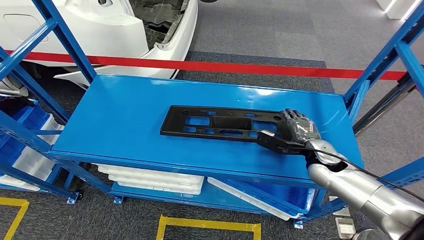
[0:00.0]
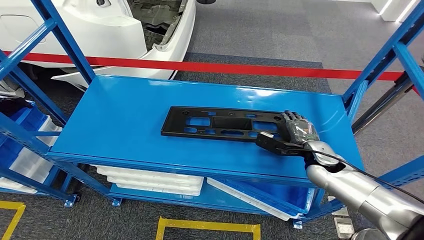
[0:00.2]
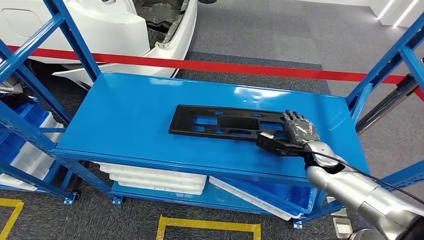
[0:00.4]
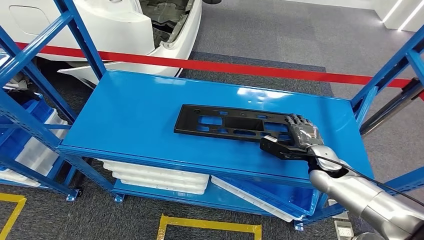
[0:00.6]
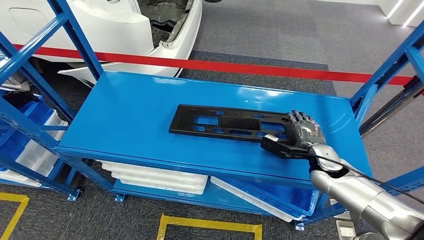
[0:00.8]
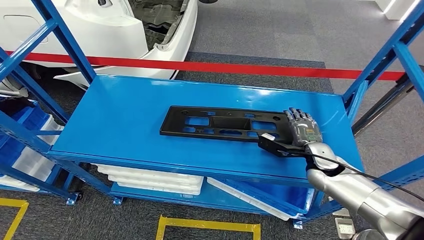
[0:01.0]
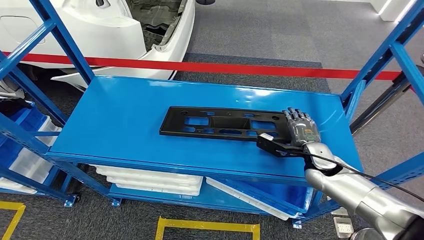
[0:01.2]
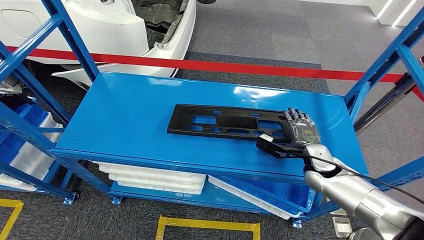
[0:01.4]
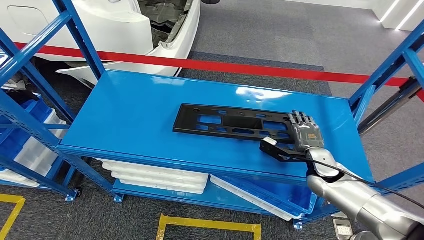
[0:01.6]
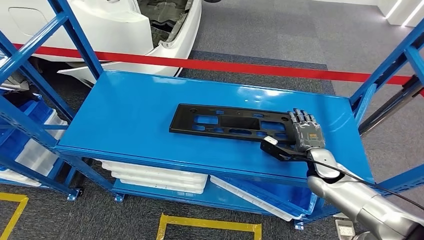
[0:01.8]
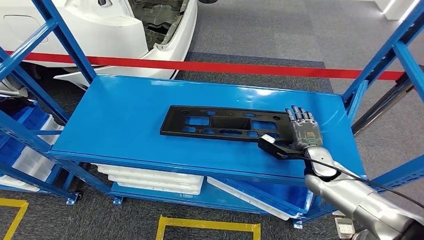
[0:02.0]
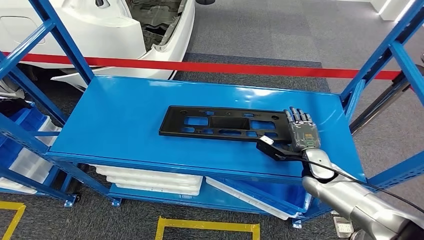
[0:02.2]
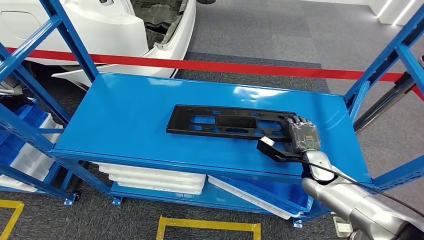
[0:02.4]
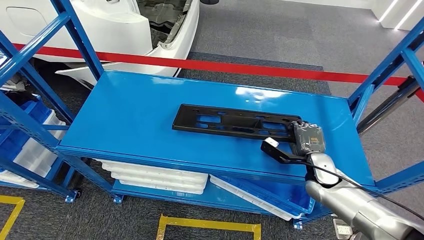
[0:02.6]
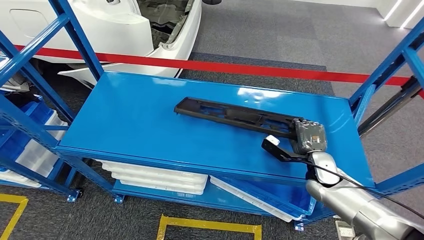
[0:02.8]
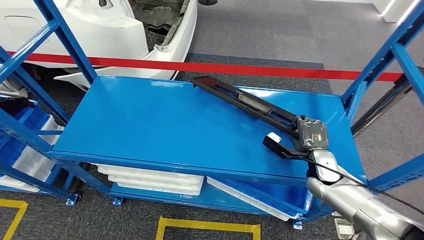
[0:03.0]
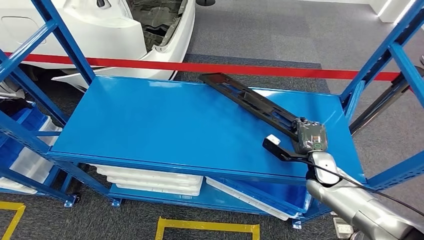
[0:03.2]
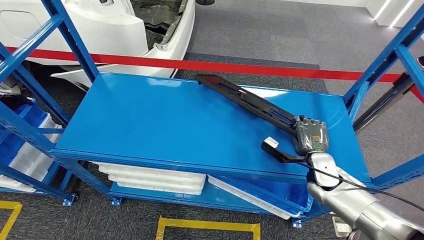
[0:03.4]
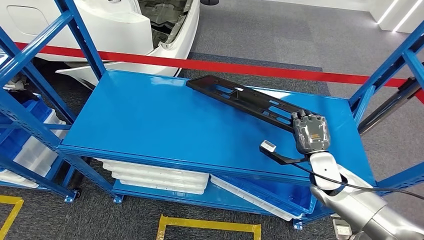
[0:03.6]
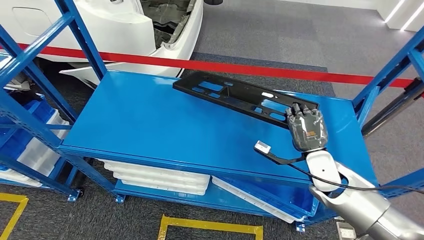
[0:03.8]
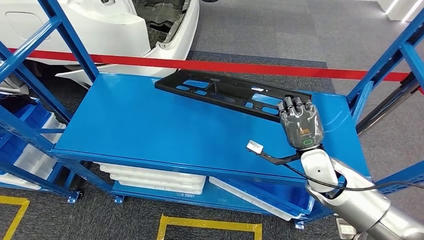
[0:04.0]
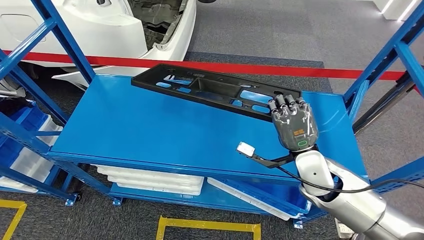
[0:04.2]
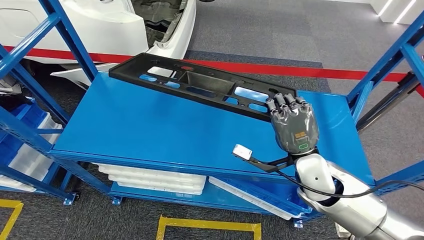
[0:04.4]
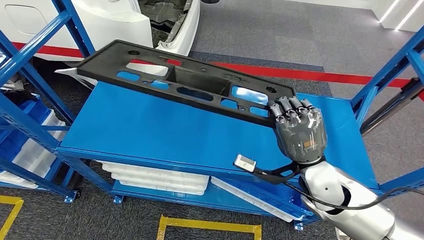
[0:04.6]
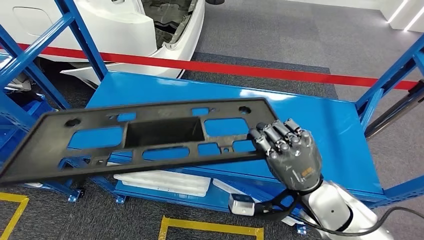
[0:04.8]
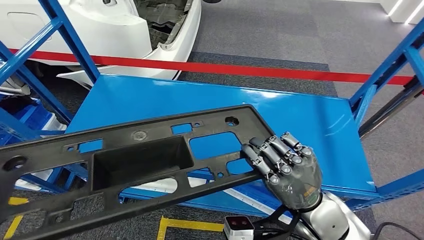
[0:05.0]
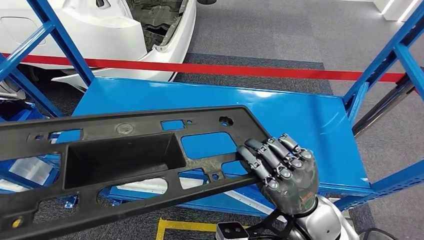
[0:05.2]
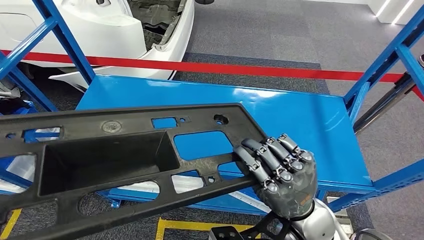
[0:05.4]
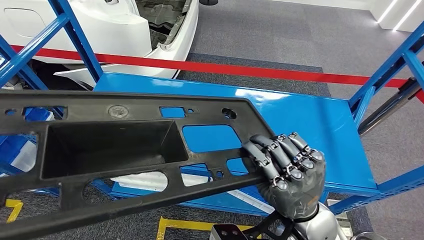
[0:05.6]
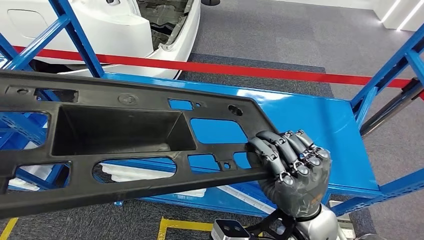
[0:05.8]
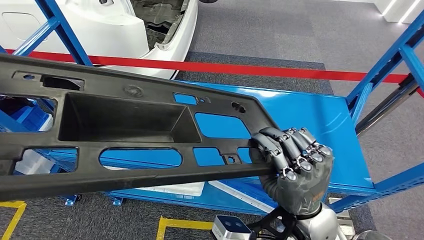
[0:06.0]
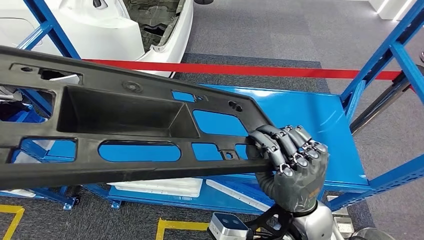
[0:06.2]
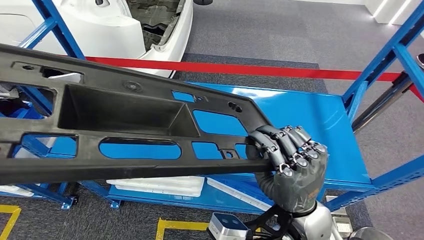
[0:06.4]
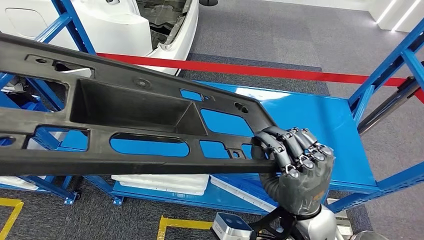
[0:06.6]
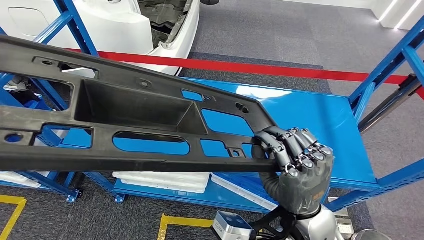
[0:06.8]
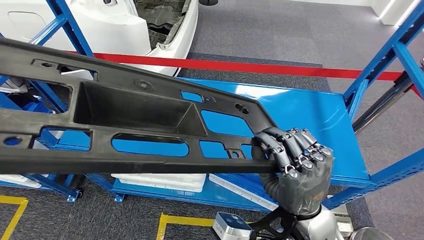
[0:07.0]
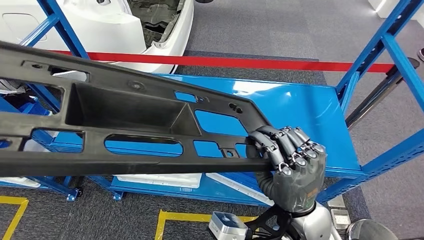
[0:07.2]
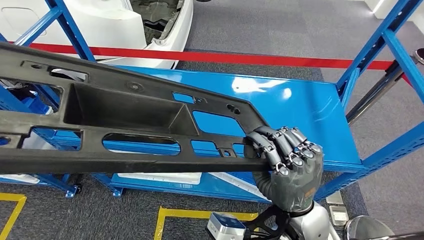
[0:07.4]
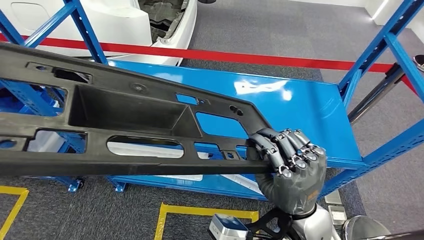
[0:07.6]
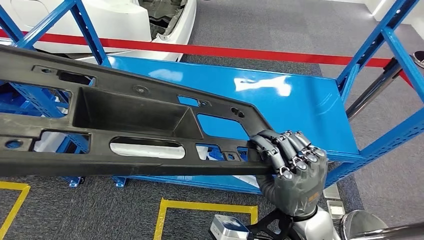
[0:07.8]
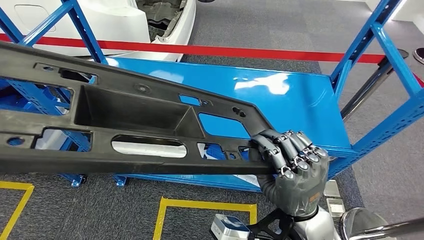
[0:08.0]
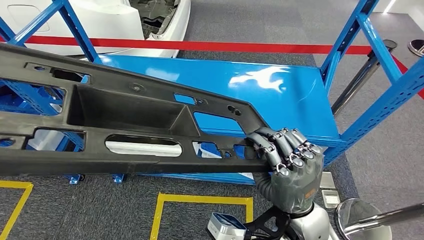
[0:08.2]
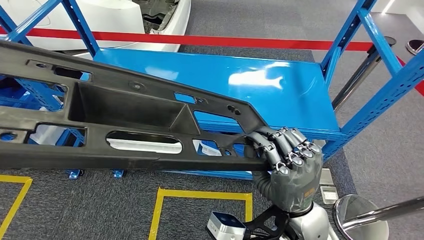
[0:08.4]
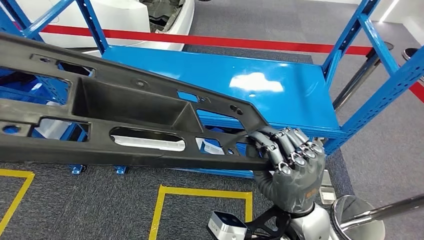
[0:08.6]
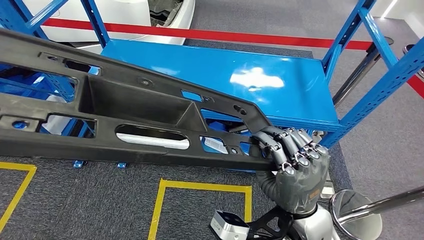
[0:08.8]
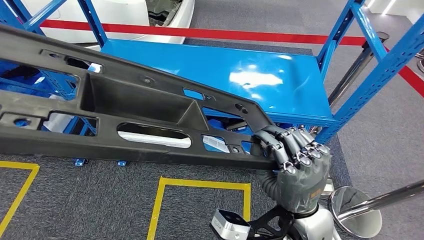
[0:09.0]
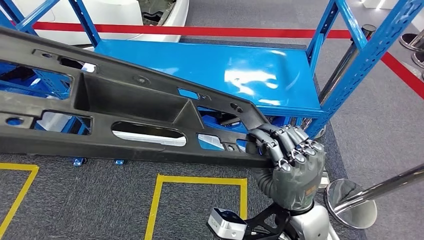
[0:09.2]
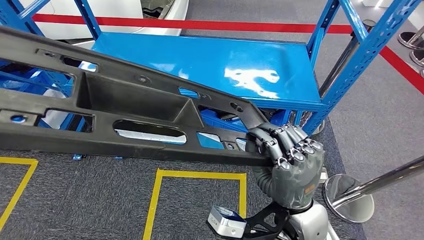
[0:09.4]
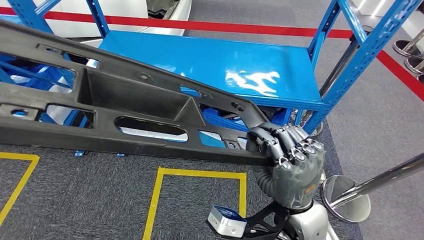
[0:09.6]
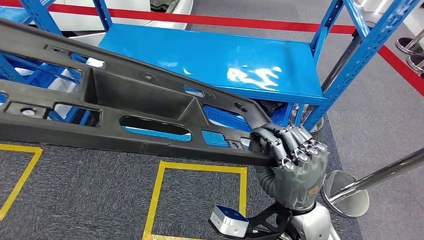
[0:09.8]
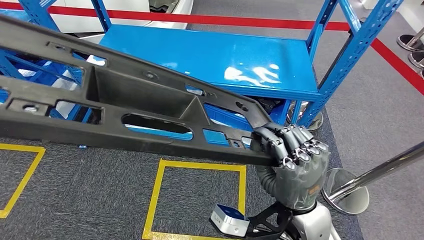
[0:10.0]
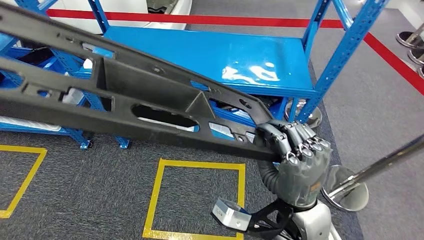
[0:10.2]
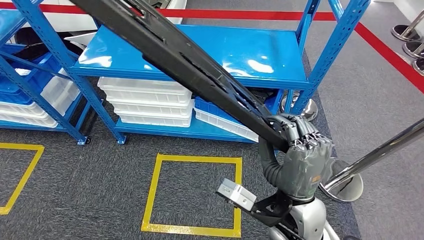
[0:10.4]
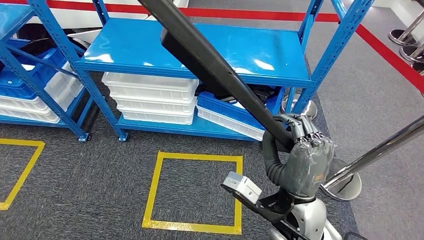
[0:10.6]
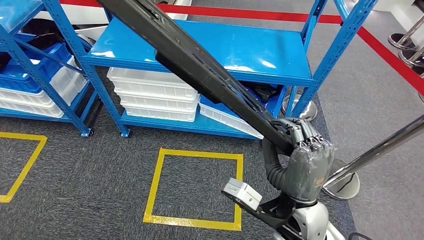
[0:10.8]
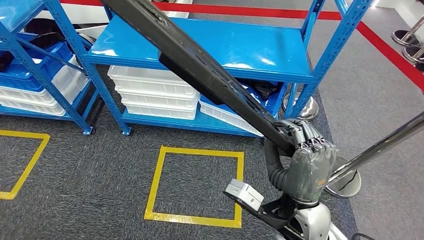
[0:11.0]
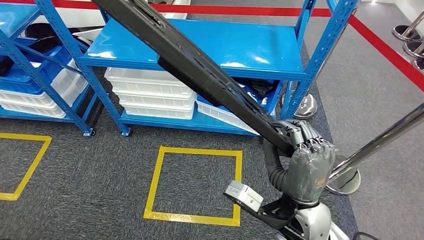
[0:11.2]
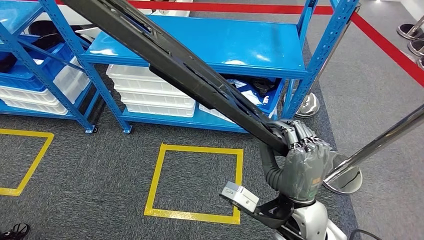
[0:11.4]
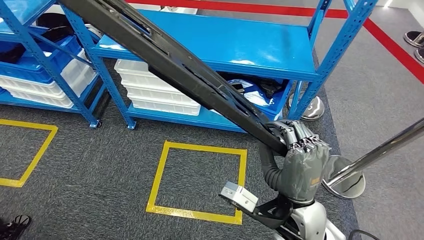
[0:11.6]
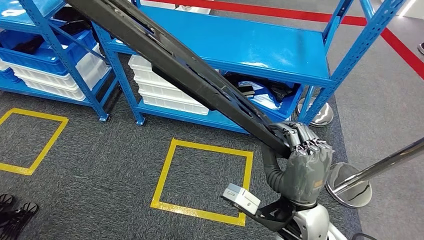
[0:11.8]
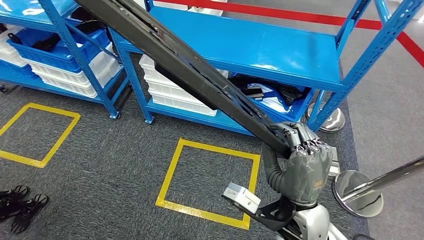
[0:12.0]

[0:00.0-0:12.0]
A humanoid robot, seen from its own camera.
Step, 0:00.0 to 0:08.4: Pick up the large material from the shelf.

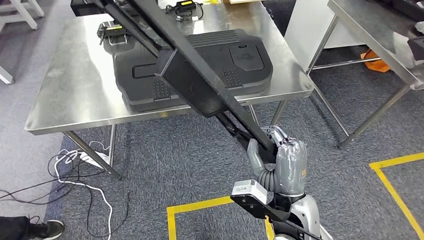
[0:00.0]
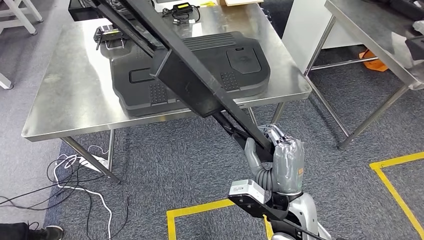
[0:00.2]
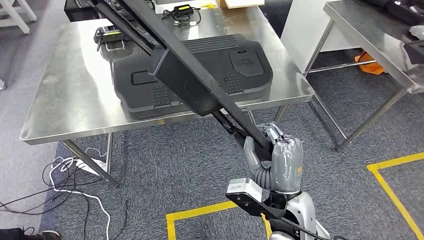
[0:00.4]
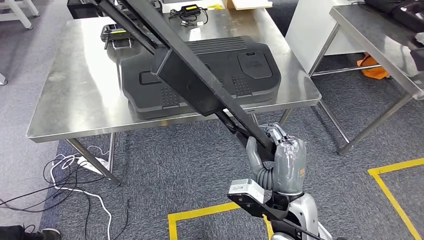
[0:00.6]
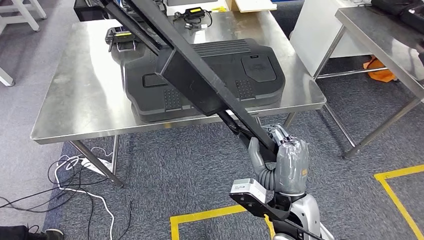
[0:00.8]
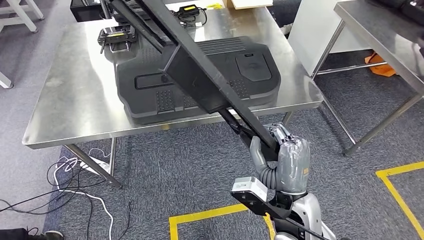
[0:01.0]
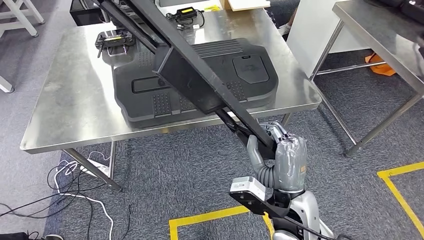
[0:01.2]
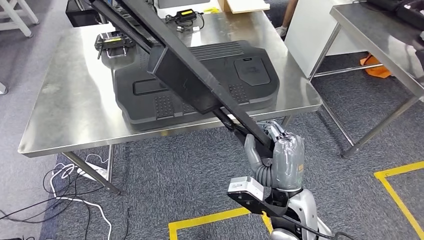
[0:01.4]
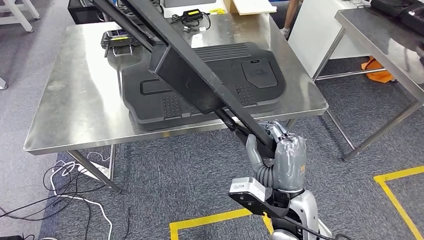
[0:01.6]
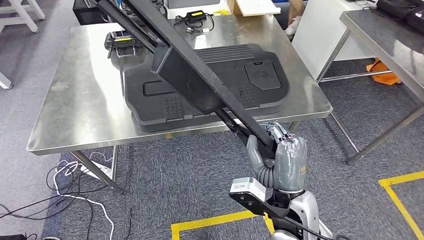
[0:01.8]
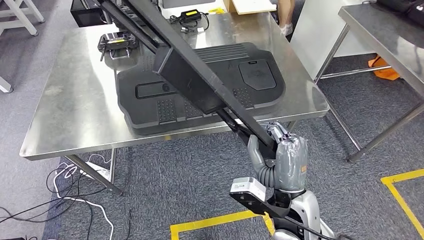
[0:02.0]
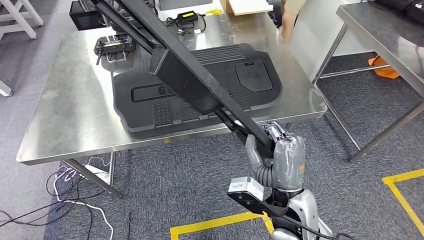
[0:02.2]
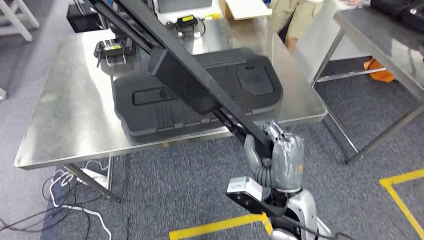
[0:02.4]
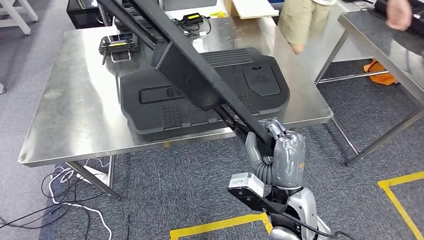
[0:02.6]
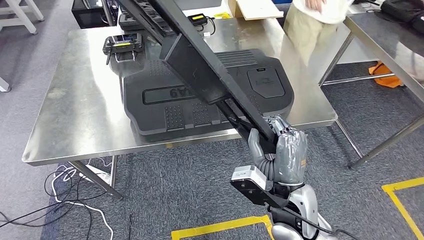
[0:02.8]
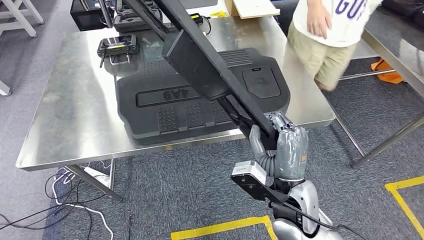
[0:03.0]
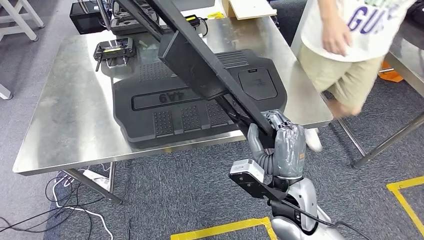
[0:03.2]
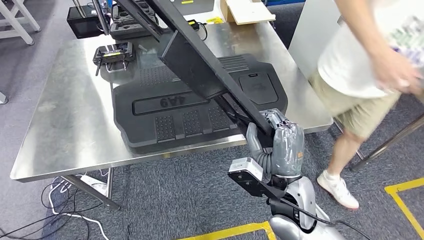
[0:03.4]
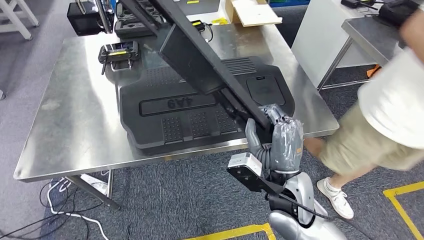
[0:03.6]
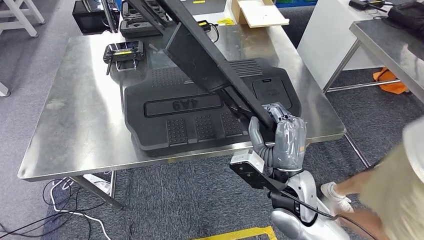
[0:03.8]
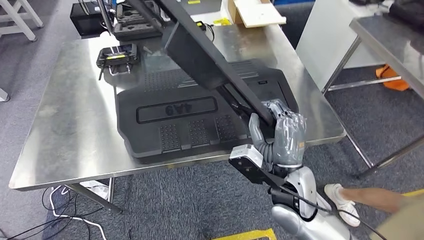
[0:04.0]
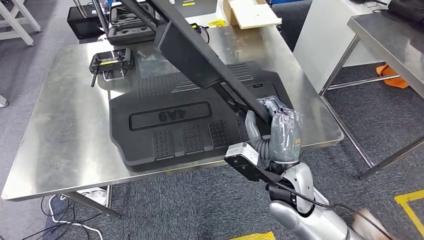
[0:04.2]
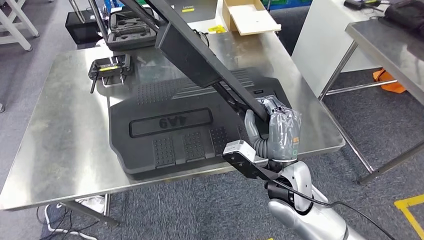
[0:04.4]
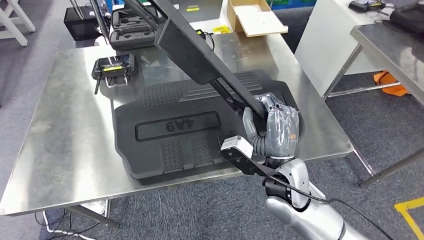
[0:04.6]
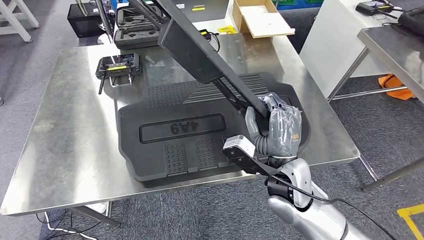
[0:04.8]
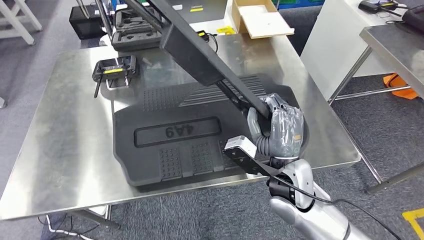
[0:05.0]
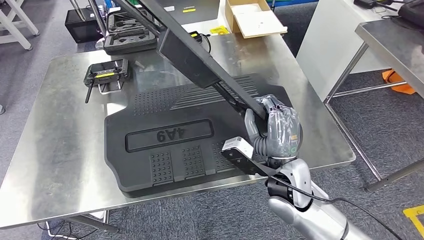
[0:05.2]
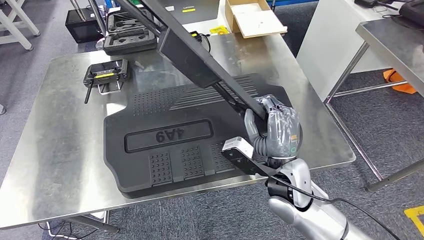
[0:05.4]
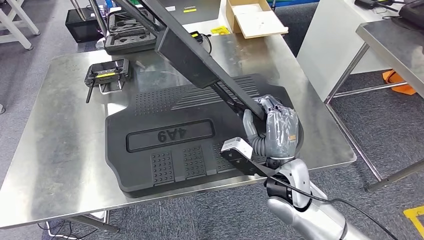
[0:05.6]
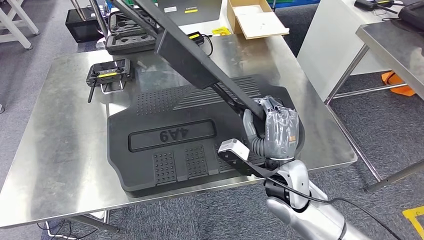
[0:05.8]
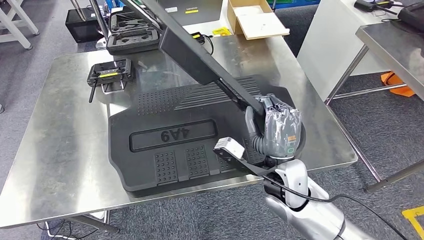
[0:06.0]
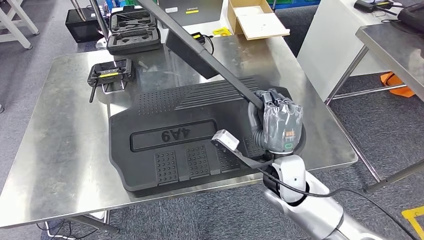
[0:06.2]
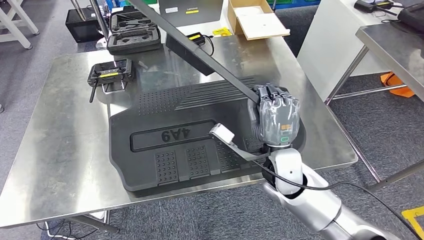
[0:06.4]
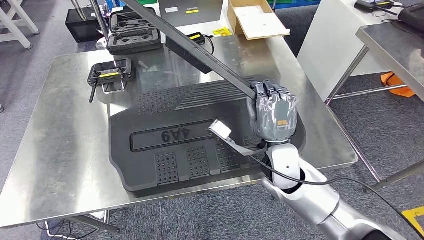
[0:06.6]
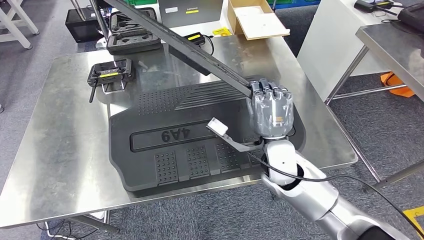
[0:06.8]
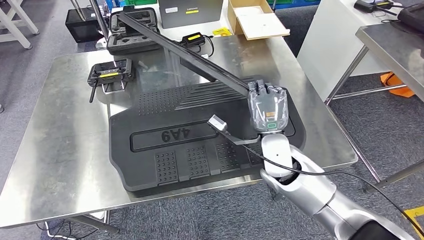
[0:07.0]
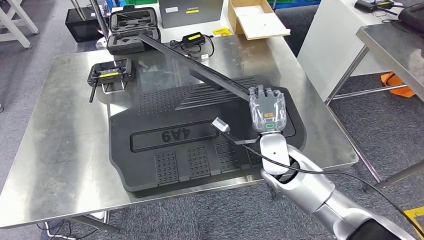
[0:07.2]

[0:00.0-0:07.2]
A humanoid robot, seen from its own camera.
0:05.8 to 0:07.2: The right hand heads forward, covering approximately 10 cm.
